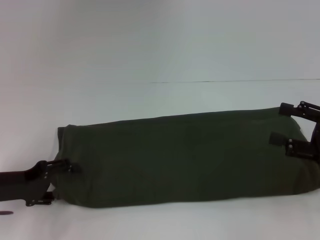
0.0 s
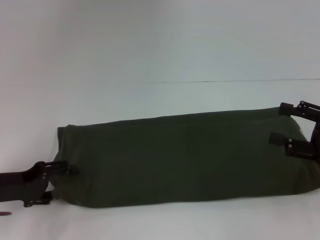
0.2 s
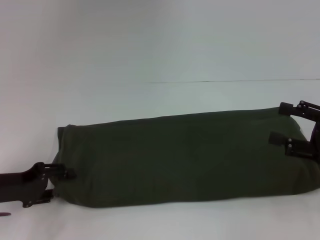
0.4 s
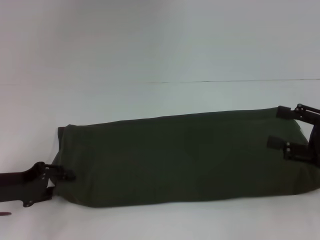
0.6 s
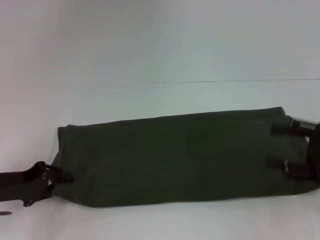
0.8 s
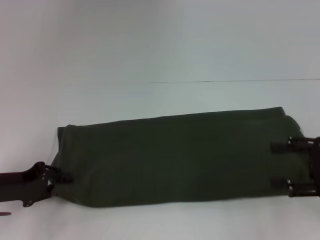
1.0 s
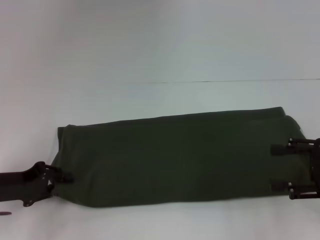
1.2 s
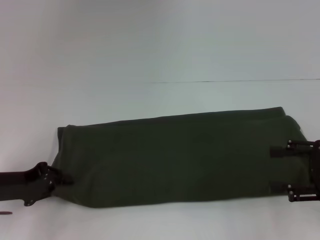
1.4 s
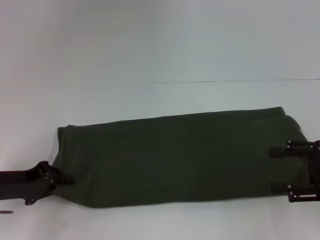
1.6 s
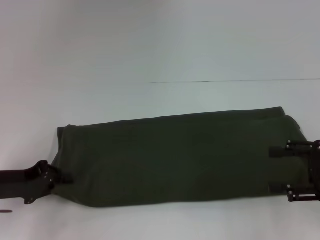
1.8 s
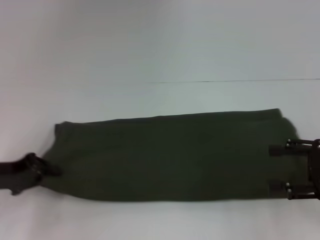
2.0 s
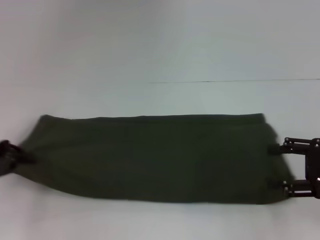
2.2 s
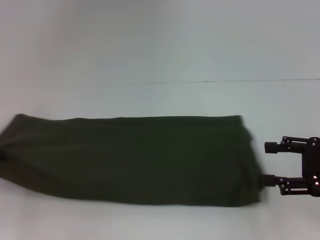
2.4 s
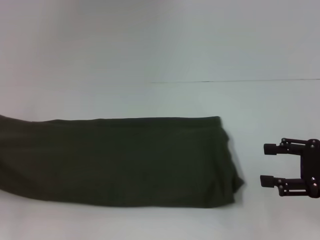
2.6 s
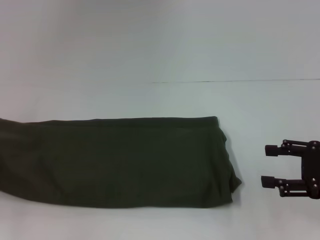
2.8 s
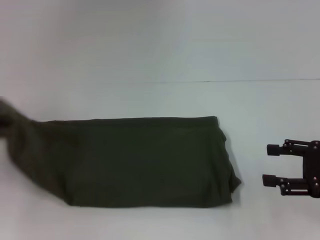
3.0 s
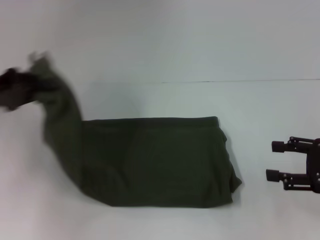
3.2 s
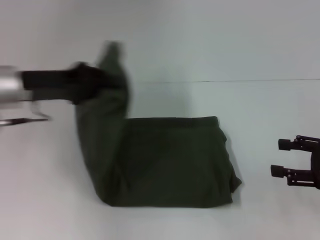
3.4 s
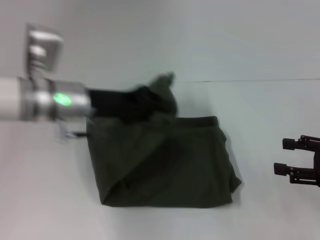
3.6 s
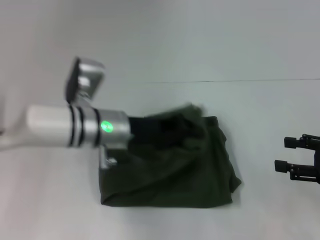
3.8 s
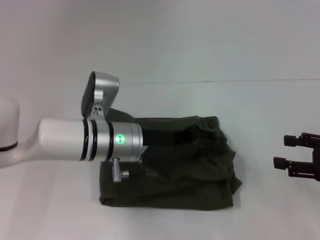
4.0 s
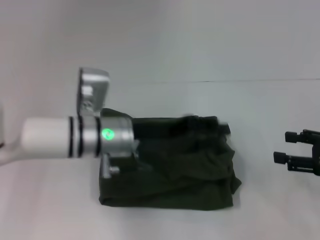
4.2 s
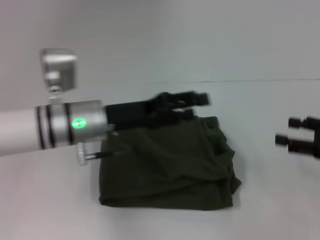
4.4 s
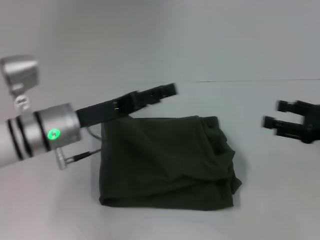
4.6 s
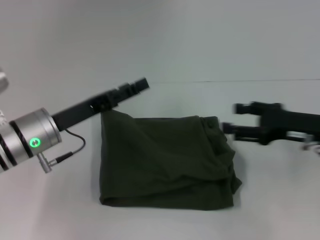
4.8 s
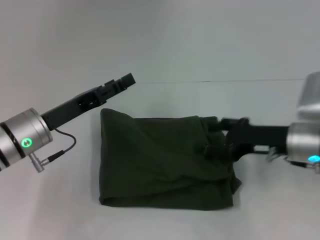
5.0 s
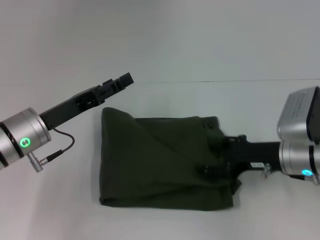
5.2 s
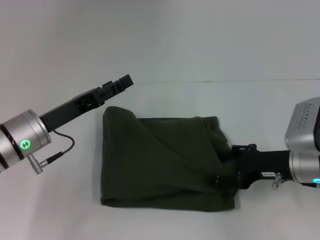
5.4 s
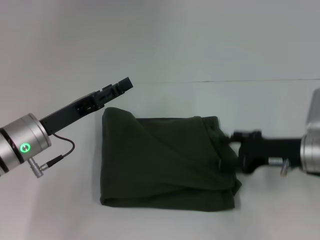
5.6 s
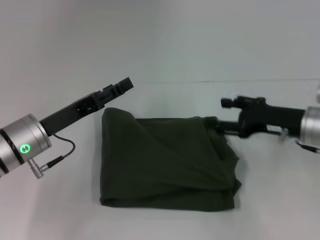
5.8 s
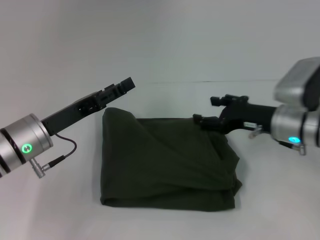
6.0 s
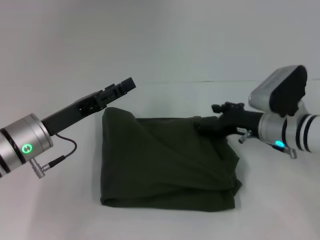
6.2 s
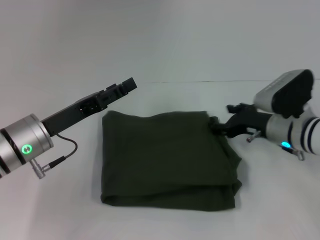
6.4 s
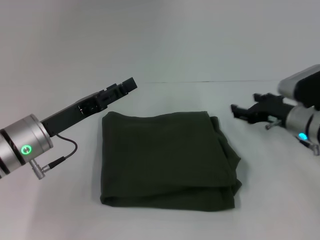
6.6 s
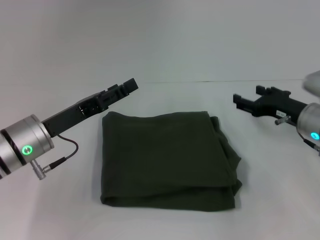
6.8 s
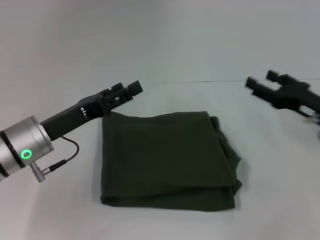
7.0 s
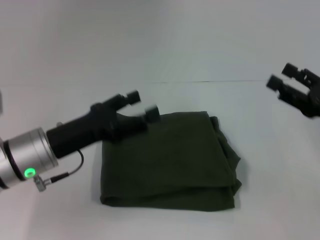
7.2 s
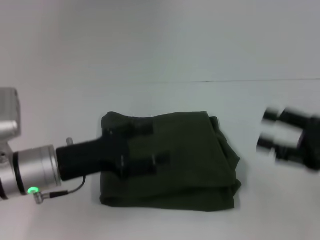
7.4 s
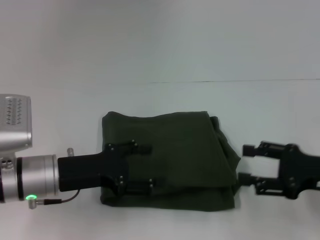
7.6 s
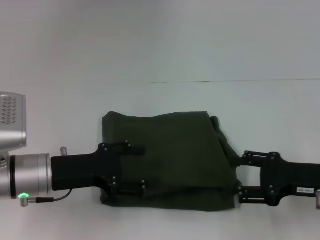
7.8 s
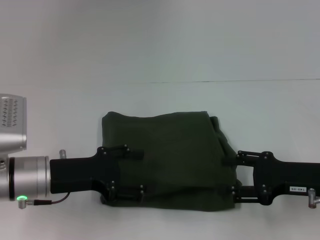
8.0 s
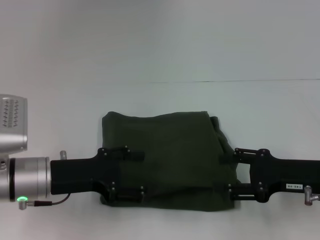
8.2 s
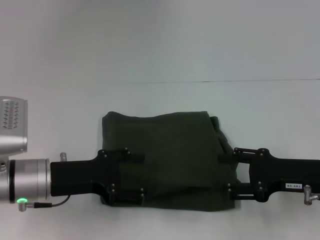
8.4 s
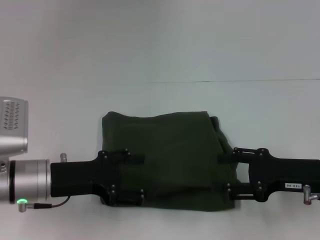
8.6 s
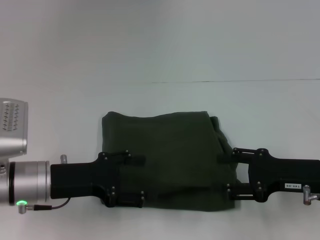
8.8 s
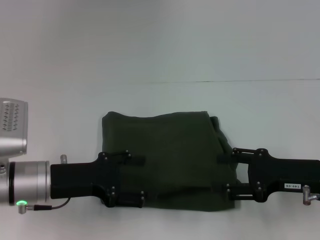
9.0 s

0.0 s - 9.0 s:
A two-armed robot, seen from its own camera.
Step, 0.0 s - 4.2 s: Fold the clothes with your left hand.
0.0 s - 1.6 s: The left gripper closes.
1.6 s - 3.0 s: The left gripper is displaced upward and to the left by about 10 cm.
3.0 s - 4.4 s: The left gripper goes roughly 25 cm to the right, and opens.
4.4 s - 6.0 s: The right gripper heads to the left and forward, covering approximately 15 cm. The left gripper moves to the left, roughly 10 cm.
6.0 s - 7.6 s: The right gripper moves backward and to the right, roughly 15 cm.
7.6 s - 9.0 s: The grippers stay close to where they were, moving slightly.

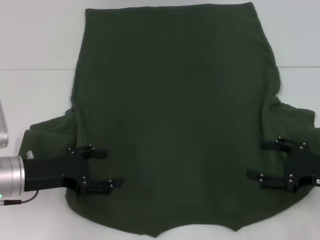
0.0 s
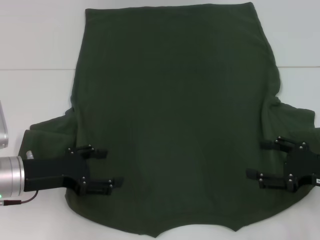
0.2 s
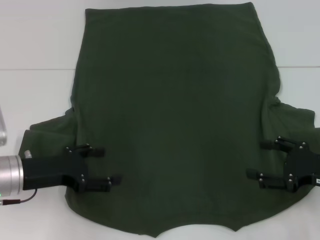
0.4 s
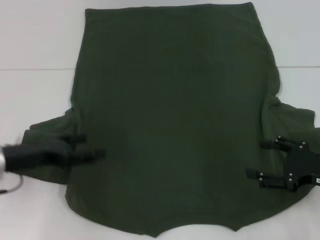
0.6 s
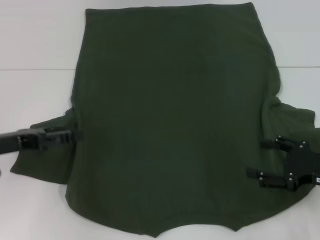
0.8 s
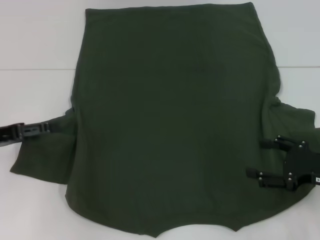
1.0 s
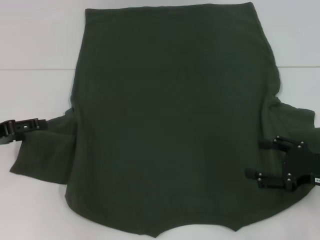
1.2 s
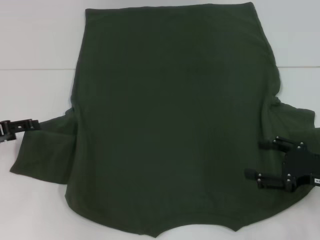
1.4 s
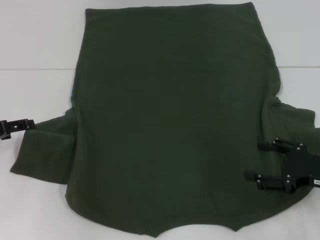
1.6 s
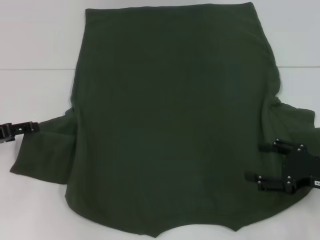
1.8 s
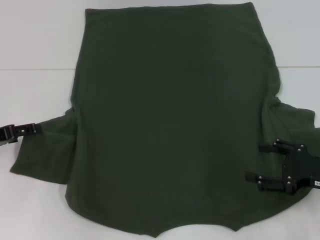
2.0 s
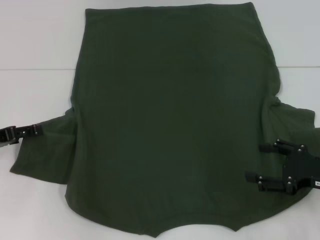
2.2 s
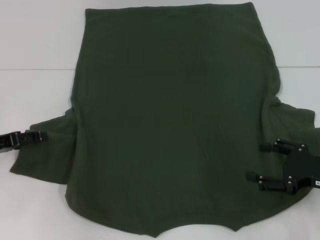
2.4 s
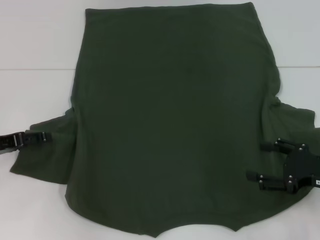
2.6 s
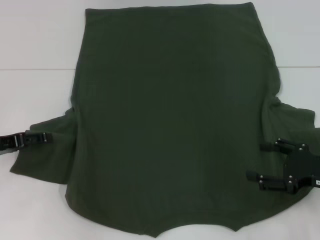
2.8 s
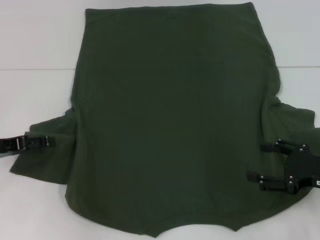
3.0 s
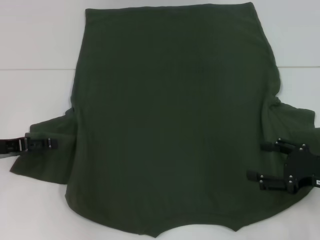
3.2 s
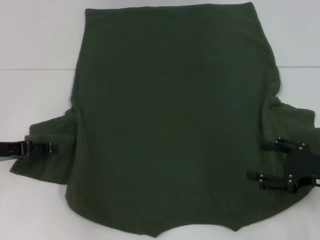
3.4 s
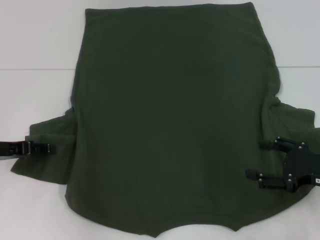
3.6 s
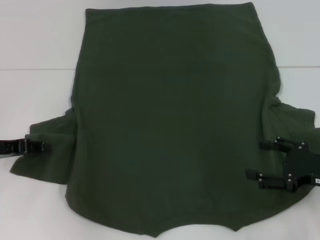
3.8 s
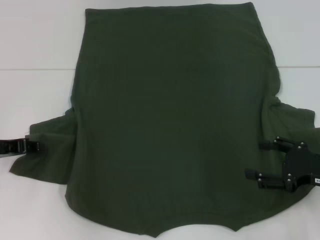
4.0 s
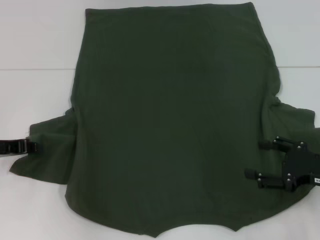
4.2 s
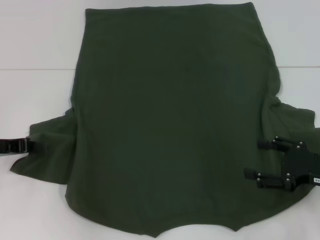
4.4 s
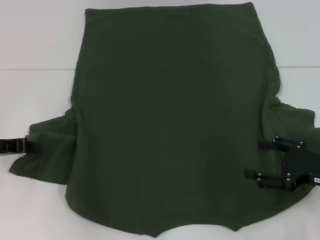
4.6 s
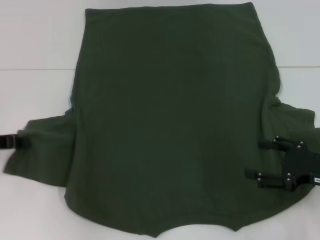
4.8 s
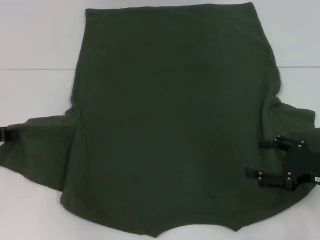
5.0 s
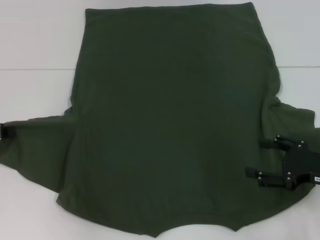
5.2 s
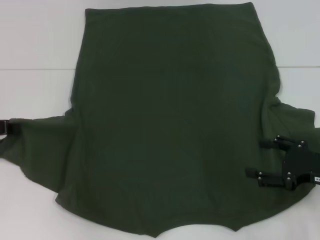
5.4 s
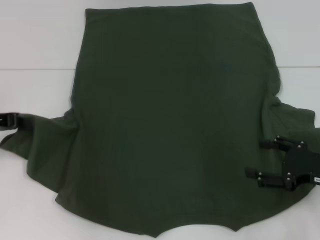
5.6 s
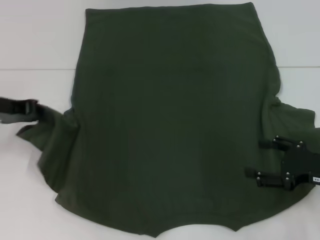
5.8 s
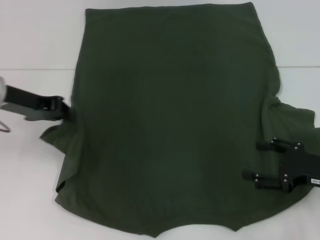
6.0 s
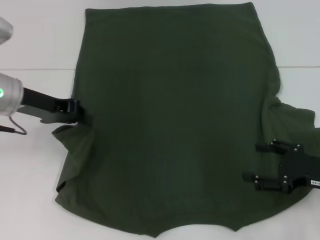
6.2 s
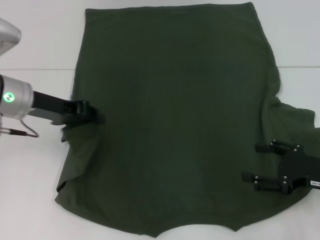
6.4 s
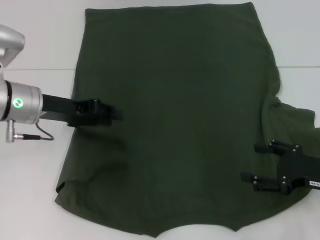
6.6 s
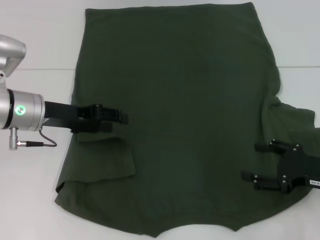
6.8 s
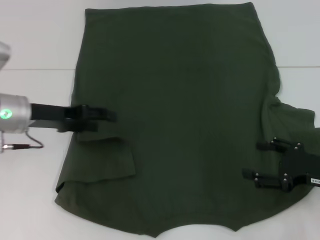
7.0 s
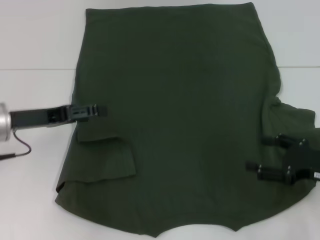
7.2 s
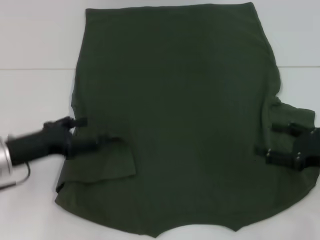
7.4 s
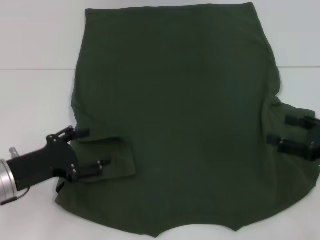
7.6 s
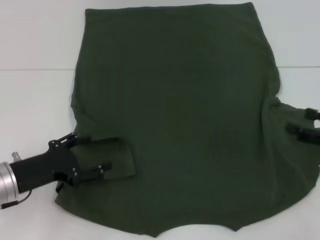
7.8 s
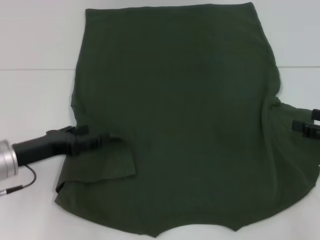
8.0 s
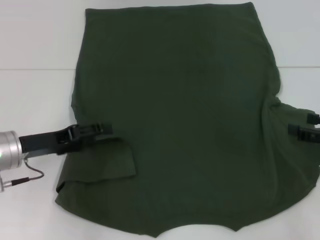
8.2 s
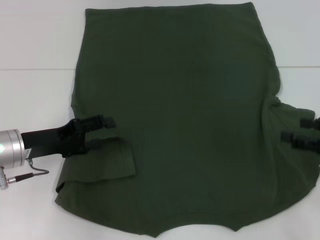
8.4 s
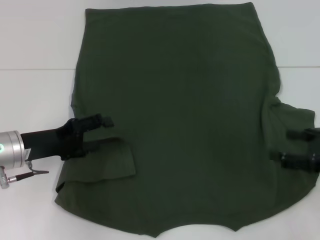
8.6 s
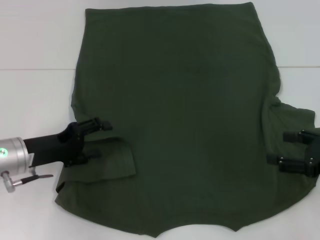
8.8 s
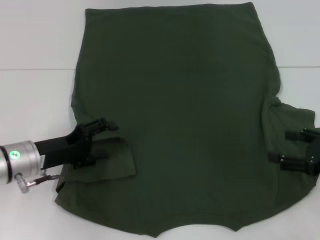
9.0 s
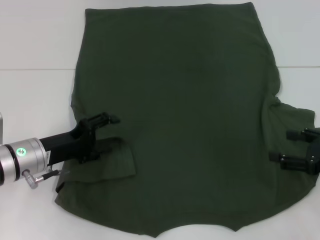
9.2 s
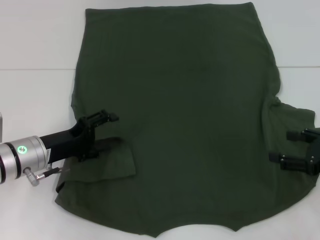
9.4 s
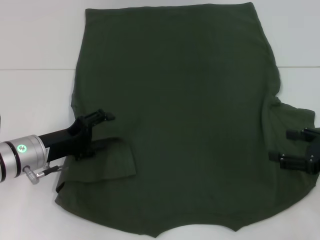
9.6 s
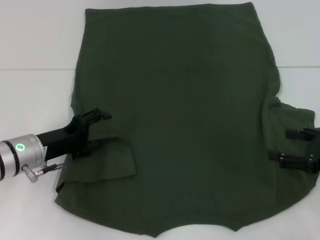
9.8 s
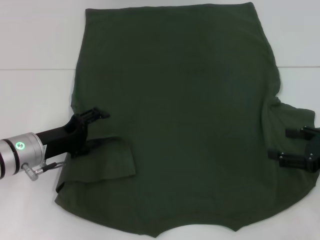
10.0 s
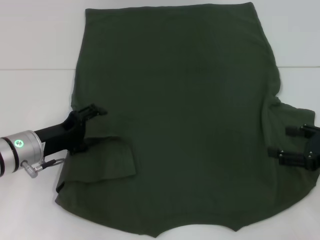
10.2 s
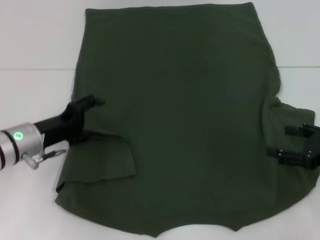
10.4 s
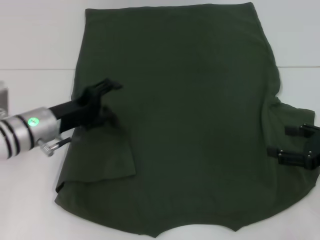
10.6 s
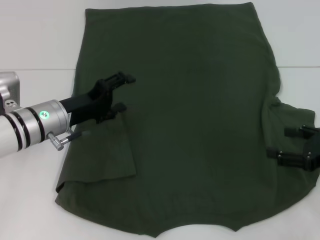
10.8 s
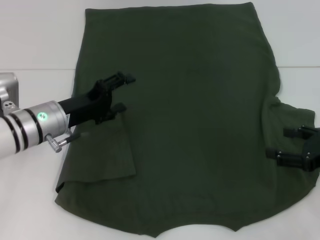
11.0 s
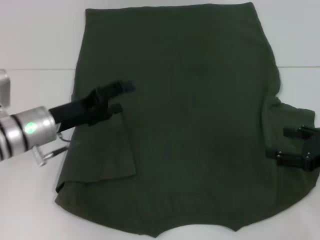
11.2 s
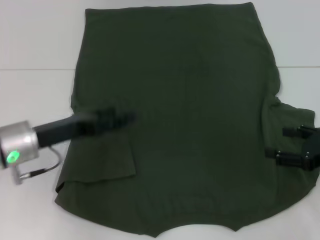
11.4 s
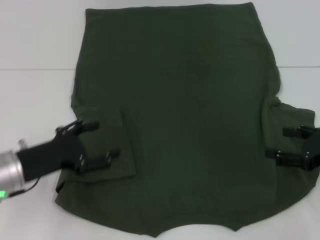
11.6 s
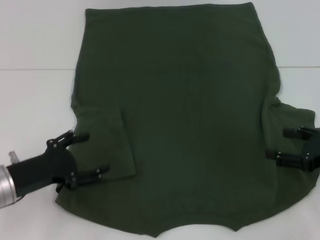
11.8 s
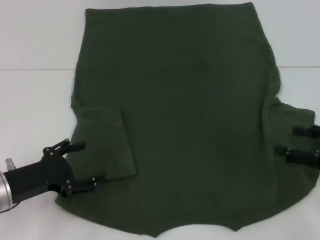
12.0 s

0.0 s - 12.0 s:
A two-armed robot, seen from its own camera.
Step, 0.0 s - 11.4 s: Fold the bottom left sleeve with your left hand.
0.0 s - 1.6 s: The left gripper is displaced to the left by about 10 cm.
1.6 s - 3.0 s: The grippers move only a little.
4.4 s - 6.0 s: The left gripper heads upward, to the right and forward, covering some 10 cm.
6.0 s - 7.6 s: The left gripper heads backward and downward, covering about 15 cm, and opens up.
7.6 s - 9.0 s: The left gripper changes place by roughly 5 cm.
9.0 s - 10.4 s: The grippers move only a little.
10.4 s - 12.0 s: The left gripper moves backward, some 10 cm.

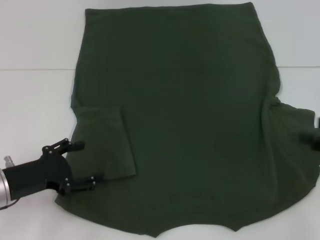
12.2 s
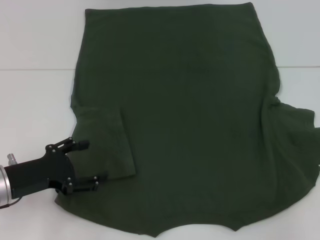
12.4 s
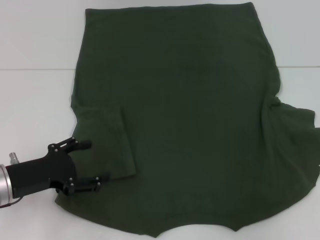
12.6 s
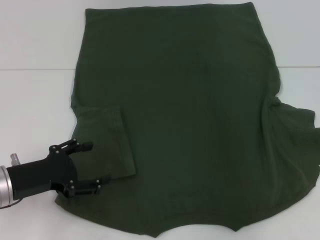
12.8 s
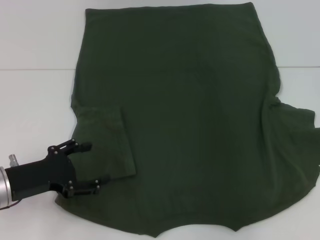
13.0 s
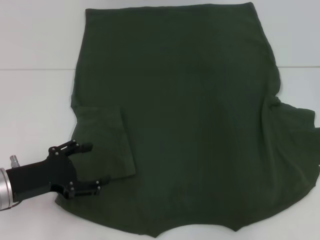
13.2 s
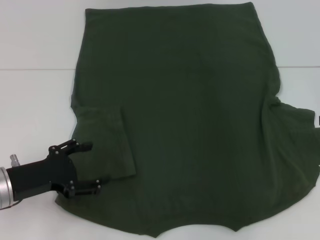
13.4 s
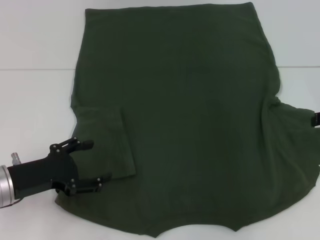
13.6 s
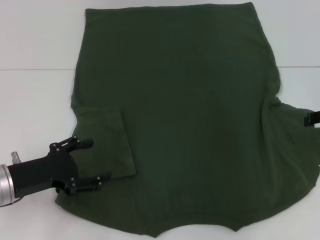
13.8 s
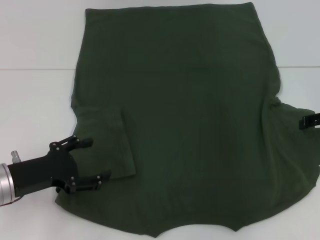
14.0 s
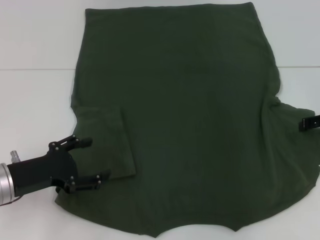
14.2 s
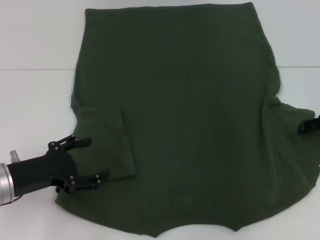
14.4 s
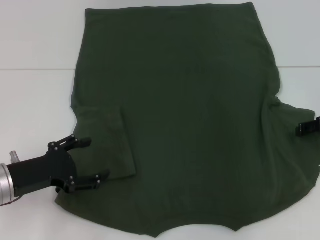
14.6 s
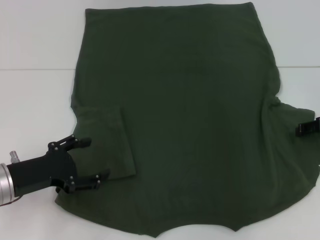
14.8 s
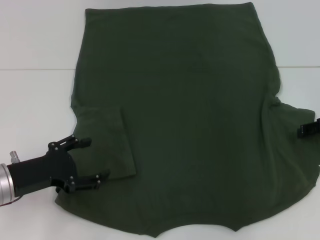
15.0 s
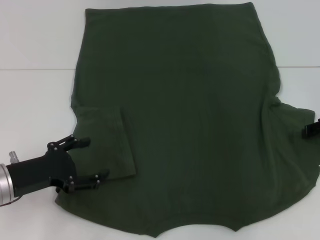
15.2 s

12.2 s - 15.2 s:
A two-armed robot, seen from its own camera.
12.2 s - 13.8 s: The right gripper shifts roughly 10 cm forward.
13.8 s - 15.2 s: There are only small adjustments of the grippers.
